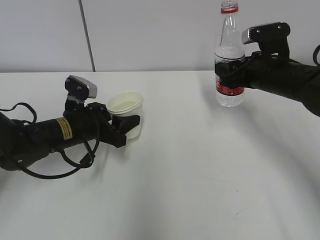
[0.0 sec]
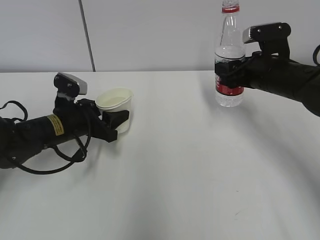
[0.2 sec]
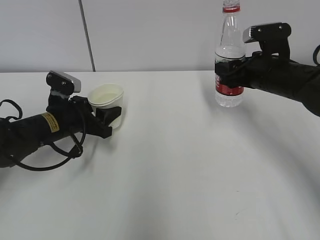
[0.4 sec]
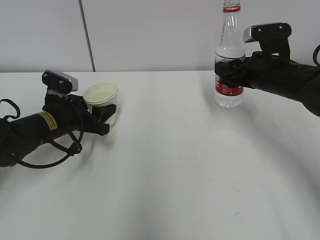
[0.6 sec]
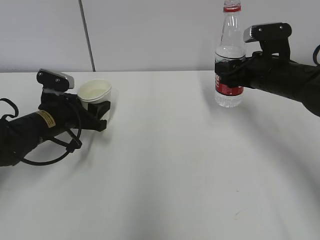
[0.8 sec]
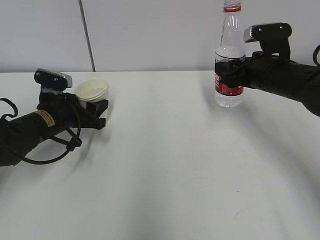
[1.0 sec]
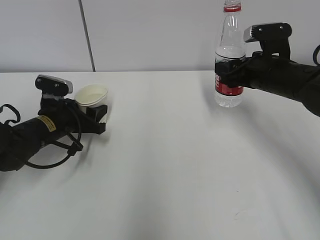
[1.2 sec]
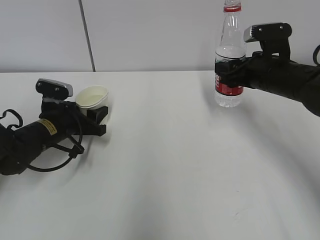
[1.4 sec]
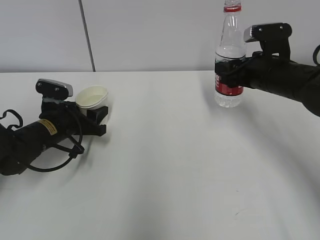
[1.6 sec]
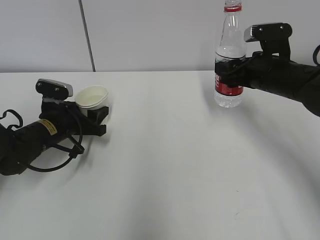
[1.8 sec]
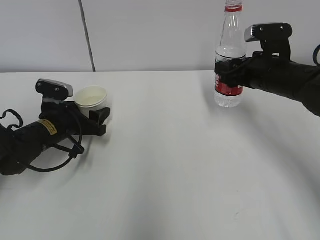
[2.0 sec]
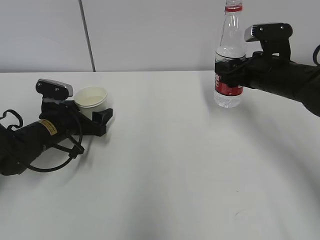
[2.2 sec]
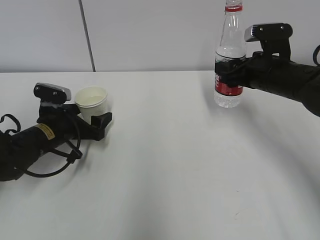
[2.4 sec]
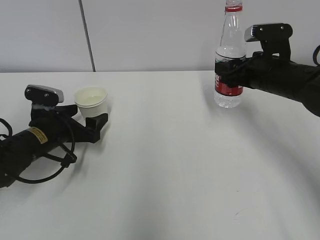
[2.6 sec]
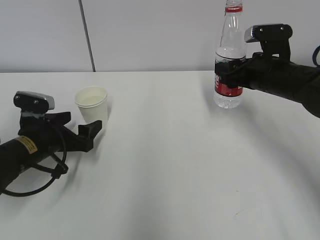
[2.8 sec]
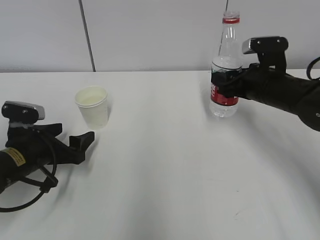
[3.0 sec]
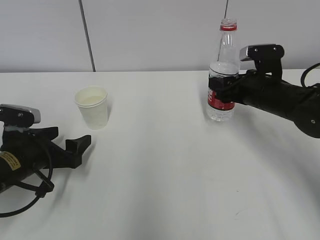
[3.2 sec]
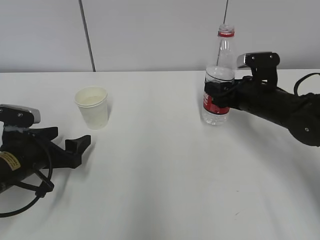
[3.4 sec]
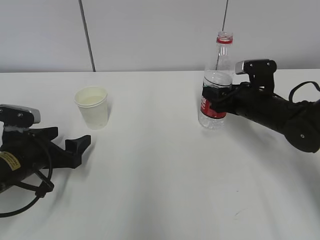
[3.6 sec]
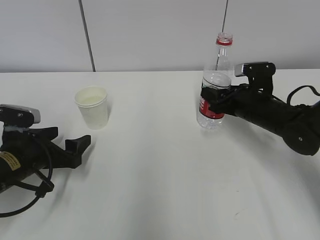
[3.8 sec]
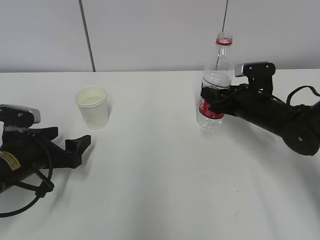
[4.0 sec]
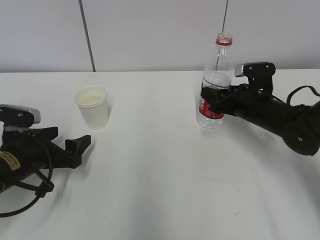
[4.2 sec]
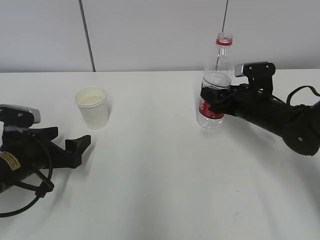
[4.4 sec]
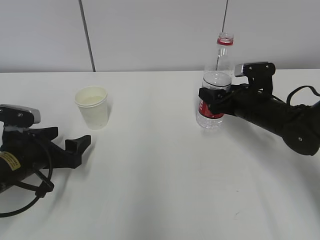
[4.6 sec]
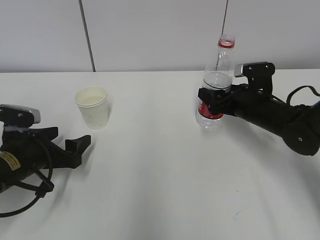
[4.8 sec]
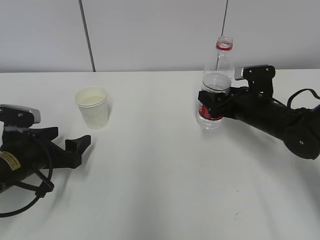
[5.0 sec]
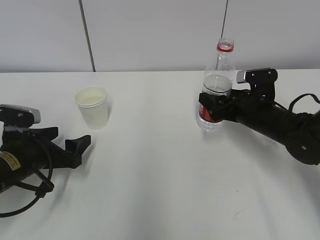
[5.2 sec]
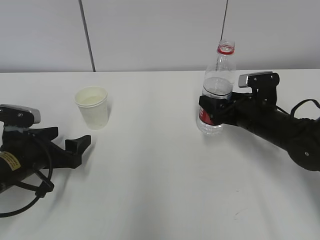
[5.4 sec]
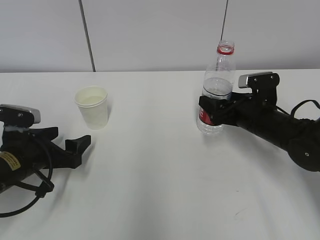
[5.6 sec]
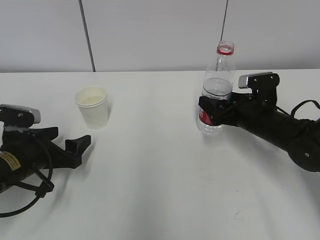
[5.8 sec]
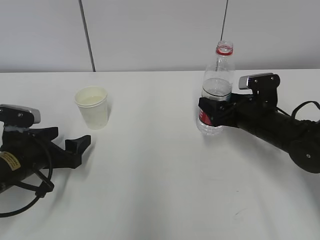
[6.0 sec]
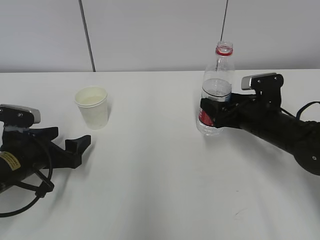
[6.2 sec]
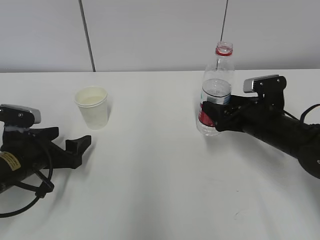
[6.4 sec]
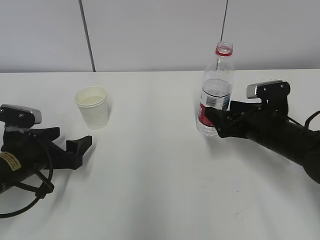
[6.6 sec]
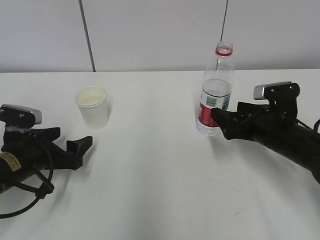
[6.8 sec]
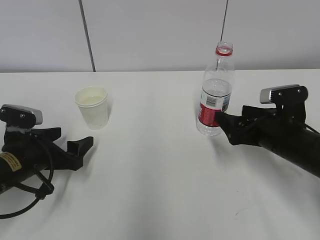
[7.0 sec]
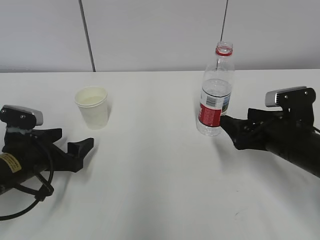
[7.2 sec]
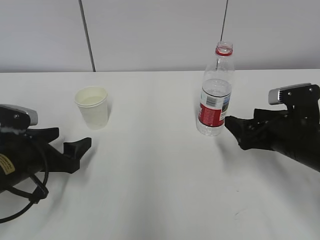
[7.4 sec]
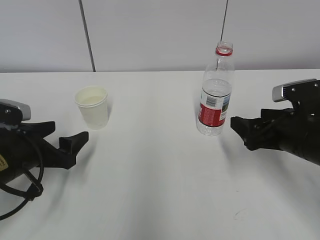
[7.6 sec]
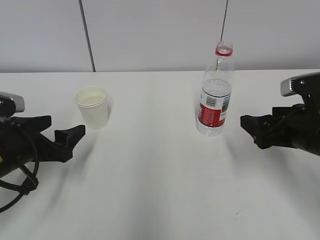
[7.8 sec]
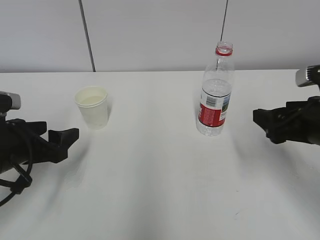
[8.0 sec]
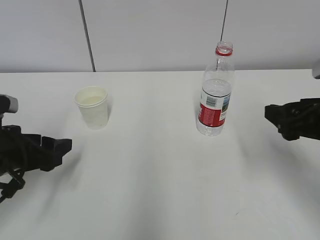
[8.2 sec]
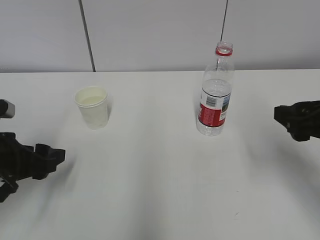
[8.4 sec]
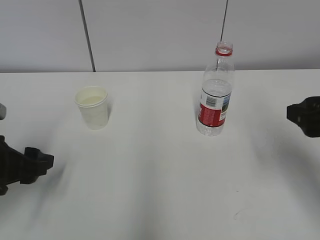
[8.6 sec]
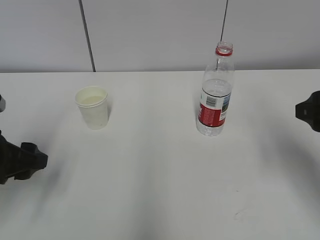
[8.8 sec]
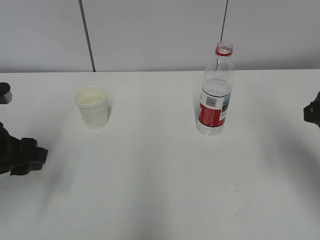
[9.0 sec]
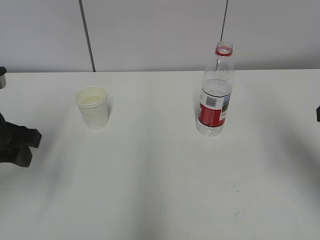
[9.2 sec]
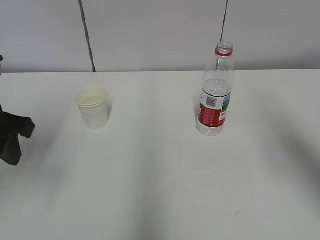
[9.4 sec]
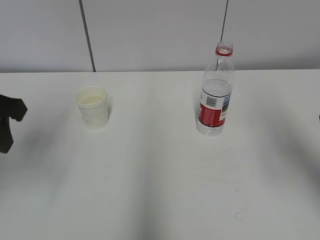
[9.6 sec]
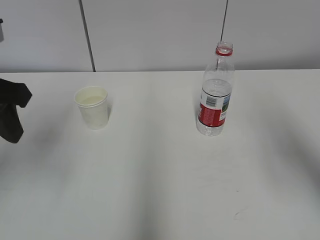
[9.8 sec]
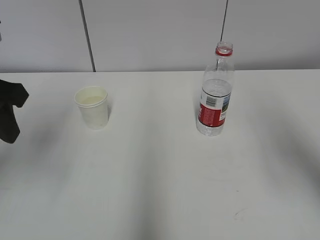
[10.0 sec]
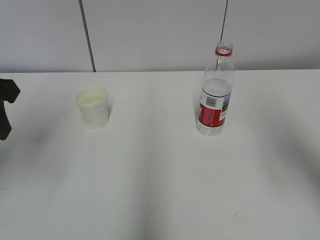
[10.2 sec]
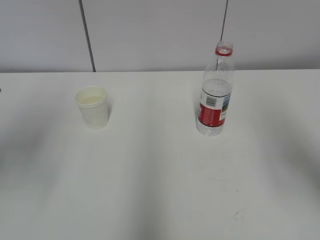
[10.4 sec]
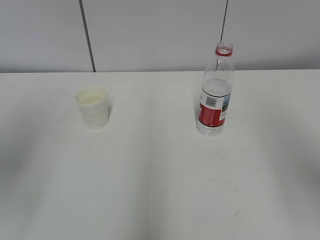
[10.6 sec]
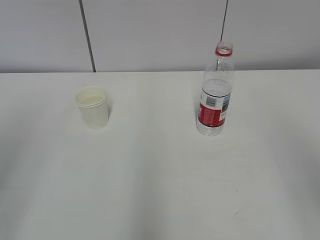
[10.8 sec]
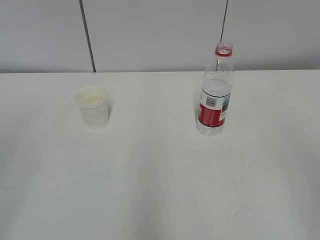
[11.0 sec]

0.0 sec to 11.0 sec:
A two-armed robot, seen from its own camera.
0.0 sec to 1.6 sec: The left gripper moves some 5 cm.
1.6 sec to 3.2 sec: The left gripper moves backward, some 10 cm, and opens.
3.2 sec to 4.8 sec: The right gripper opens its fingers.
4.8 sec to 6.2 sec: The grippers stay close to where they were, moving slightly.
6.2 sec to 7.8 sec: The right gripper heads backward and upward, covering roughly 10 cm.
7.8 sec to 9.4 sec: The grippers both shift upward by roughly 15 cm. The left gripper closes up.
9.4 sec to 11.0 sec: The grippers both shift backward by about 20 cm.

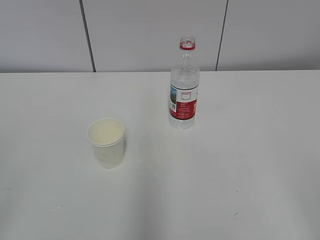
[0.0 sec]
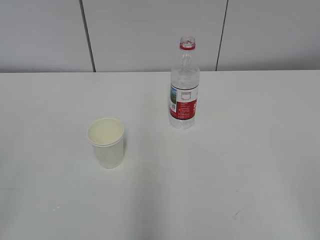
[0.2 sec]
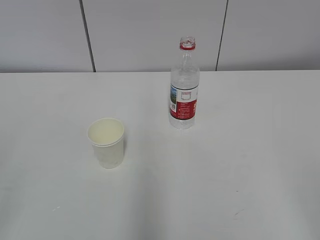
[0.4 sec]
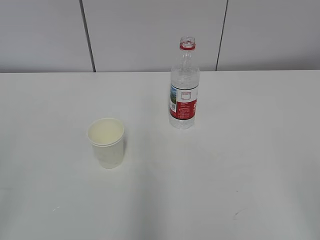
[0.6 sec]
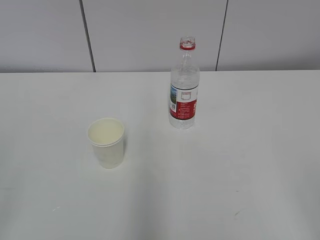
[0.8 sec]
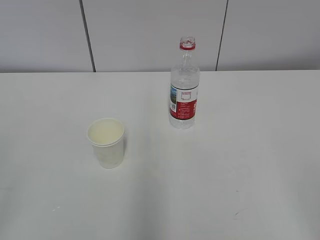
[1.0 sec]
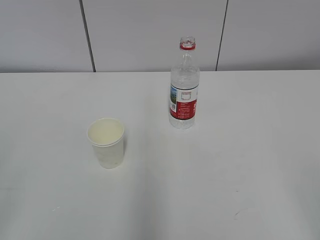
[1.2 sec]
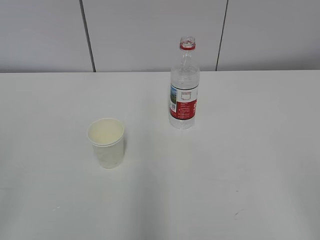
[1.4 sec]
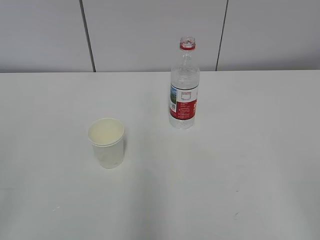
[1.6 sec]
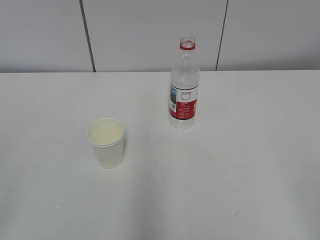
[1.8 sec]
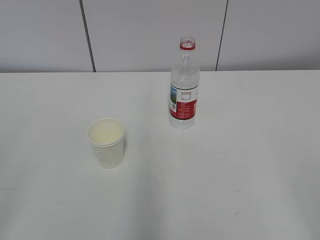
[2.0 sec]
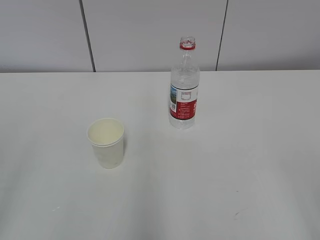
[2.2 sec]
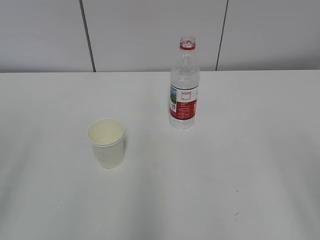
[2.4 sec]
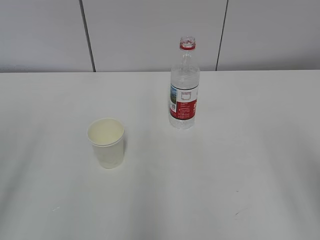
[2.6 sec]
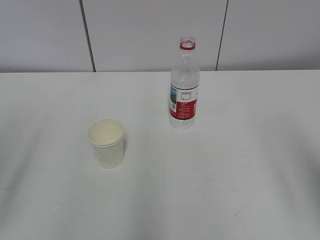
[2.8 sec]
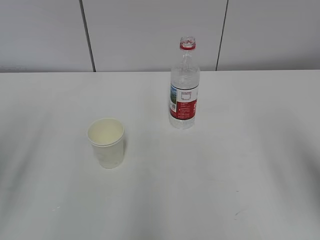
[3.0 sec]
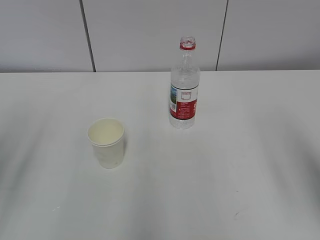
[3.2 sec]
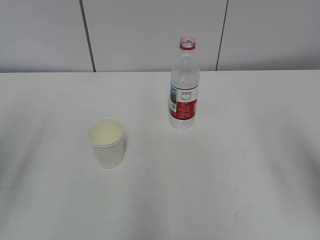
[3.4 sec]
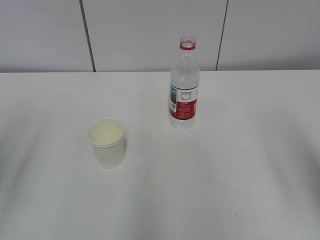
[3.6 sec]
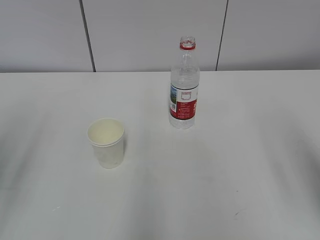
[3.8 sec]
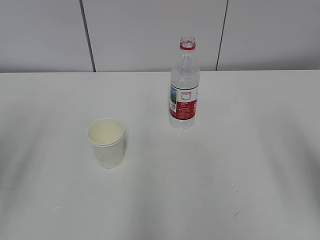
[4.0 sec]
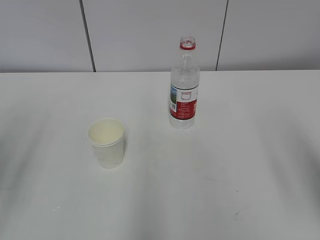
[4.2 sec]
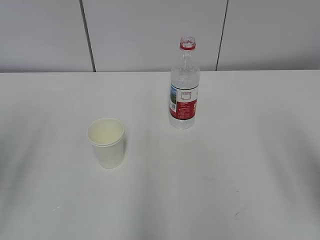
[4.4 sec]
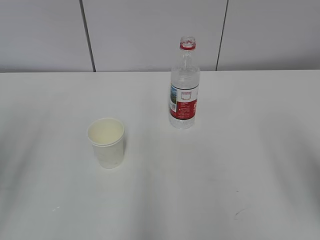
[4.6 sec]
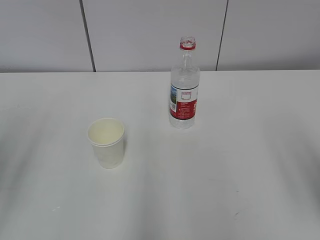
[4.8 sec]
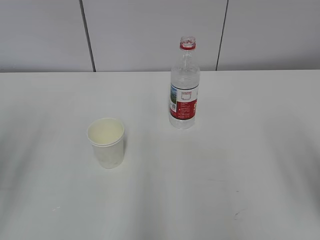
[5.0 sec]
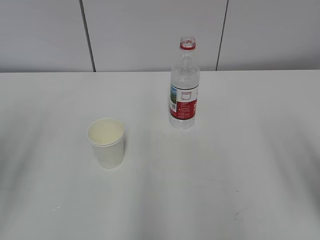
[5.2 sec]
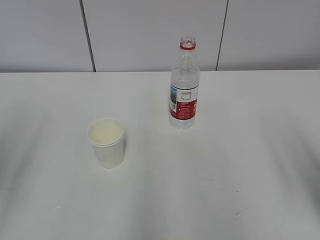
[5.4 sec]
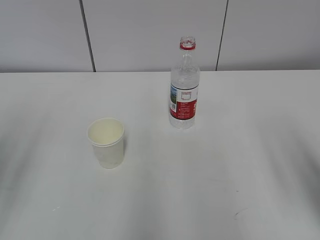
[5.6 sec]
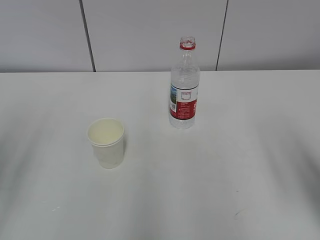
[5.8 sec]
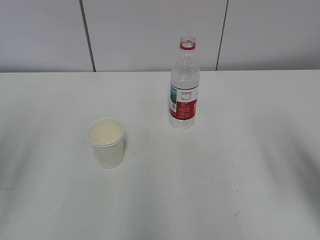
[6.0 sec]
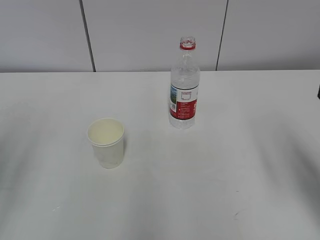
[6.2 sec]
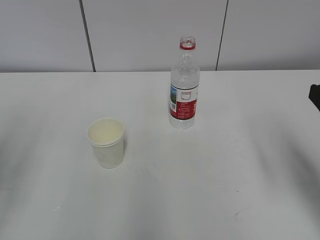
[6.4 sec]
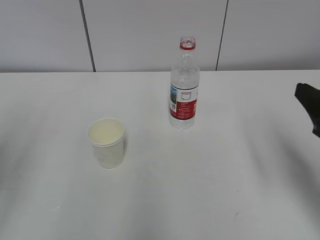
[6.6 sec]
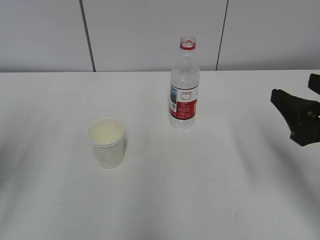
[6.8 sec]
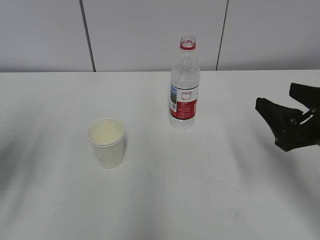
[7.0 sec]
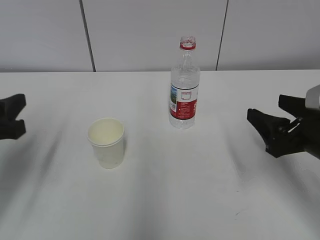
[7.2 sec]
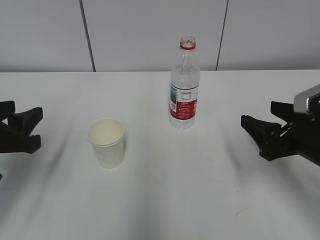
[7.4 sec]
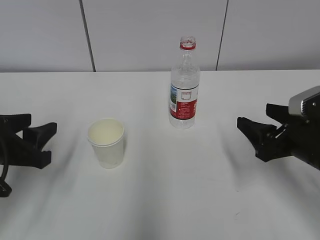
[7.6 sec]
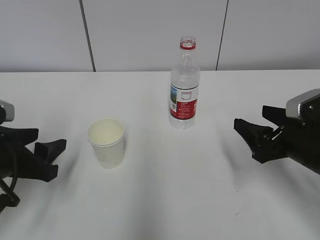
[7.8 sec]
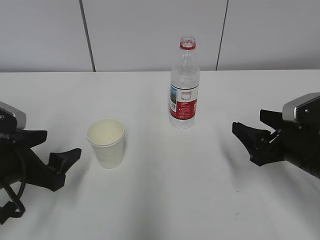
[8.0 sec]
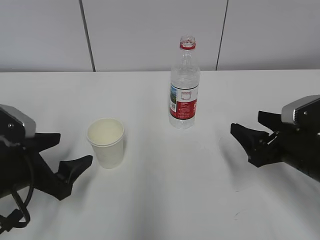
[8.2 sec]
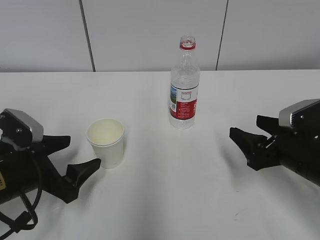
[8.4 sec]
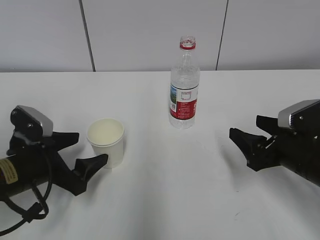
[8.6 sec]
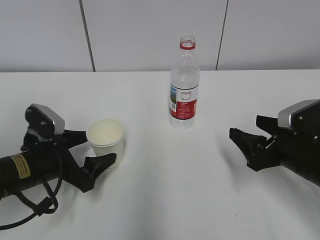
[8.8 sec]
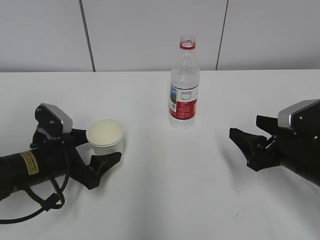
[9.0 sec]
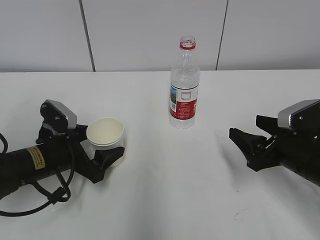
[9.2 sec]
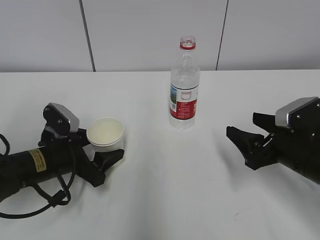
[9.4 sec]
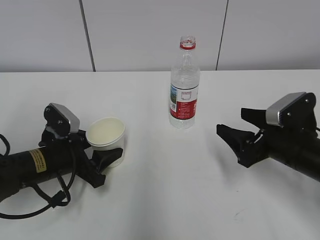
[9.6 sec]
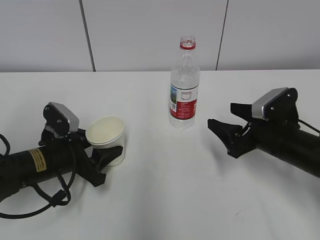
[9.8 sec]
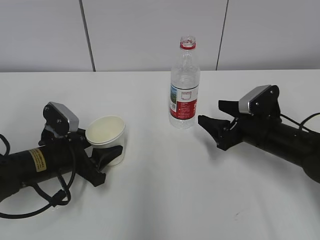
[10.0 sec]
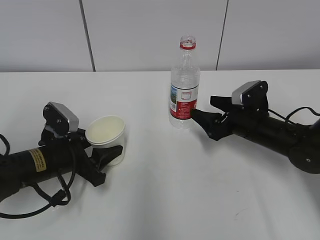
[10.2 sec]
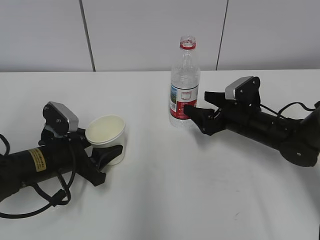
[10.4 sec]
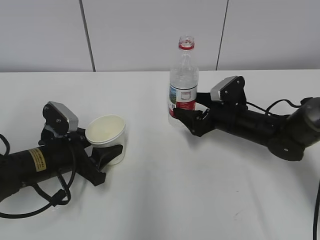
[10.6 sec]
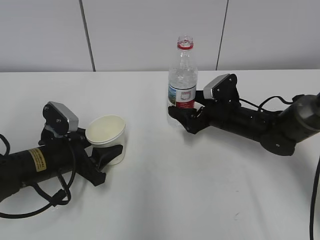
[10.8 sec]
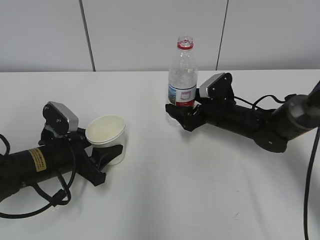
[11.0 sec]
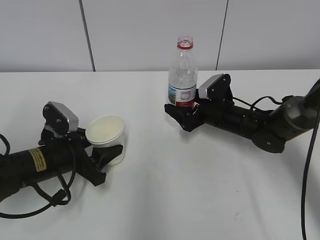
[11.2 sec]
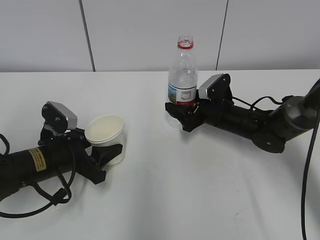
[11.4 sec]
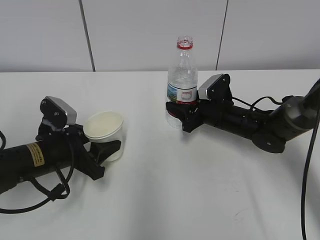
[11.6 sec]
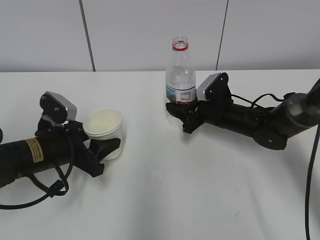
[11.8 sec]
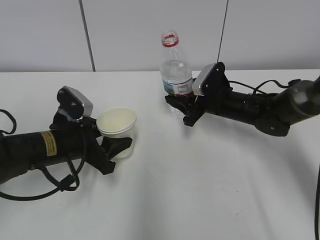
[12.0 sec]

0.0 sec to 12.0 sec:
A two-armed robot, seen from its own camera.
Step, 0.0 sec to 8.0 sec: Grab the paper cup with the left hand.
Step, 8.2 sec to 9.6 sec: Grab the water bottle with the right hand.
1.6 sec to 3.0 sec: The right gripper goes about 15 cm forward.
6.0 sec to 7.6 sec: The left gripper moves downward, forward and to the right, approximately 15 cm; the right gripper travels downward and forward by approximately 15 cm.
7.6 sec to 9.0 sec: The left gripper heads downward, forward and to the right, covering some 10 cm, and opens.
9.0 sec to 10.4 sec: The left gripper closes, while the right gripper goes about 15 cm forward.
10.4 sec to 12.0 sec: The right gripper shifts by about 5 cm, and closes up.
